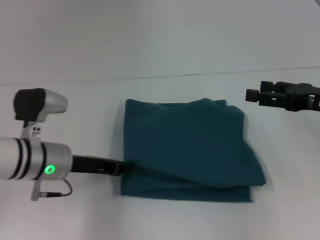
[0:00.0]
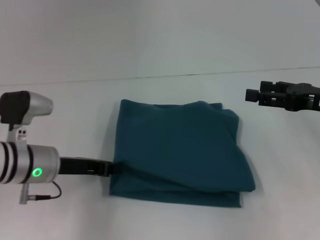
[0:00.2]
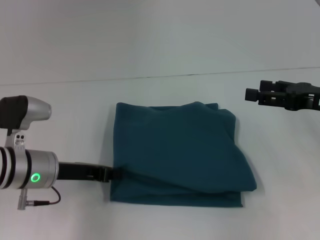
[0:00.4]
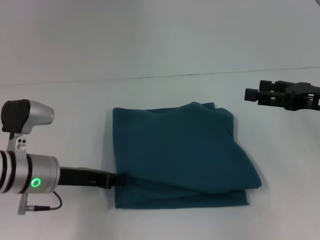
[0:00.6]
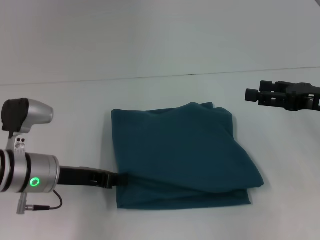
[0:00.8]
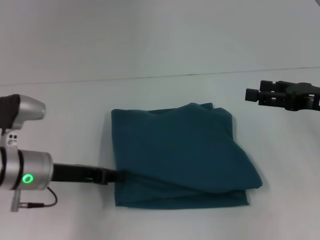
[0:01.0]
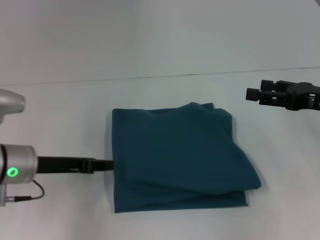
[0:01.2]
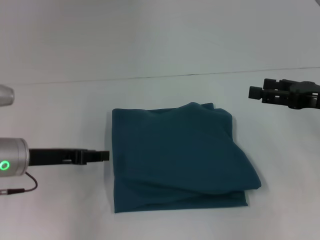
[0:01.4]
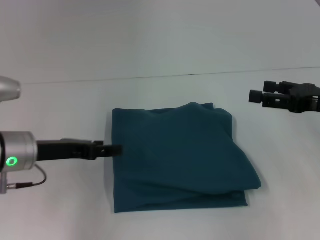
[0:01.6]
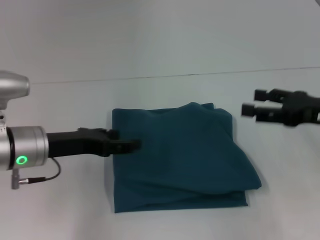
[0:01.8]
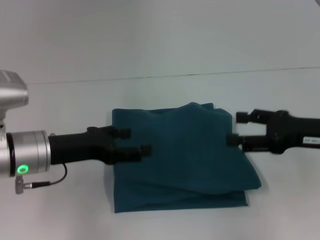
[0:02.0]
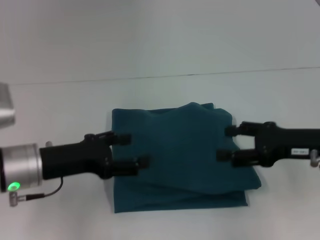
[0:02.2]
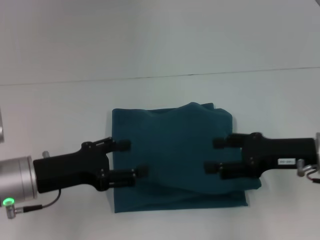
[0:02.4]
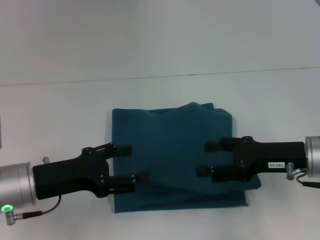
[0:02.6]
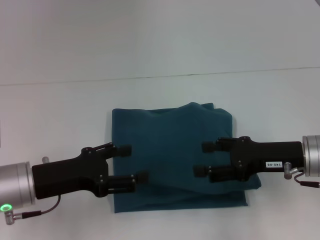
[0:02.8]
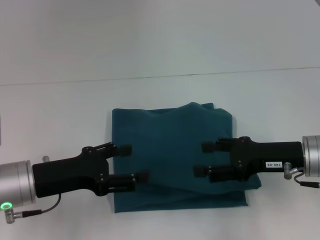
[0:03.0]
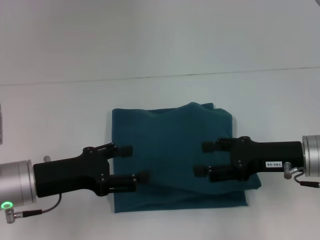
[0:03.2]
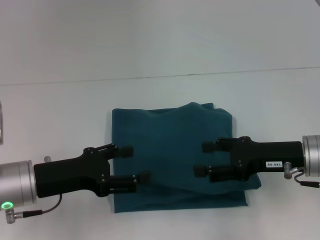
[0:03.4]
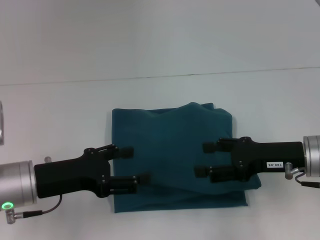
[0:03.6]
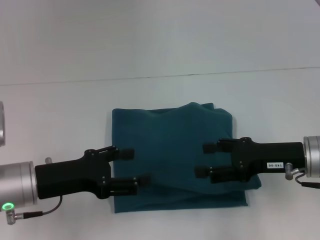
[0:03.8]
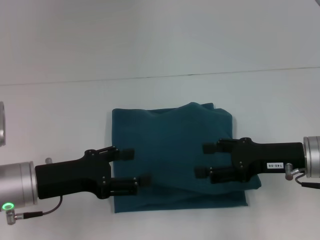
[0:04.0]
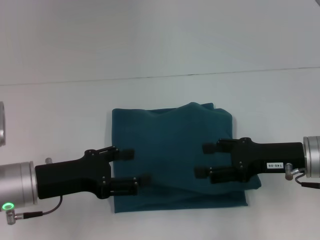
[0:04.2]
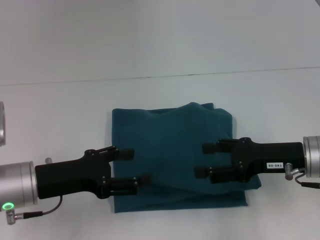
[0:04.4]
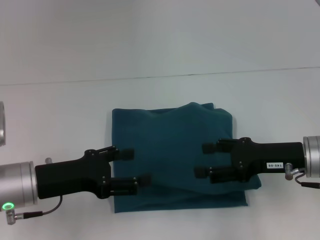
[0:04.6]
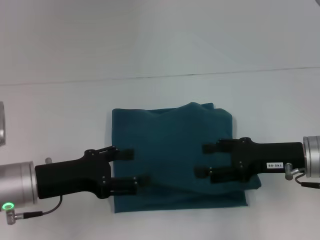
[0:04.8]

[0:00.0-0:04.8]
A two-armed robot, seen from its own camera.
0:00.0 to 0:01.6: The left gripper moves some 5 cm, and opens its fingers.
0:01.6 to 0:03.2: The left gripper is displaced backward by roughly 5 cm, and opens its fingers, while the right gripper is displaced to the left by approximately 10 cm.
0:03.2 to 0:04.8: The two grippers keep their place.

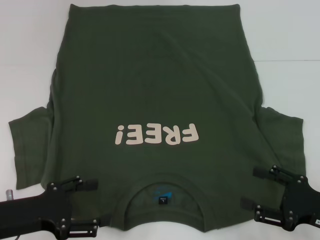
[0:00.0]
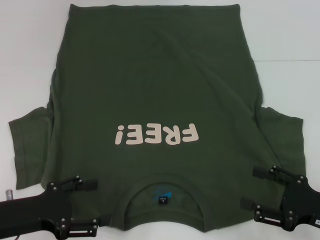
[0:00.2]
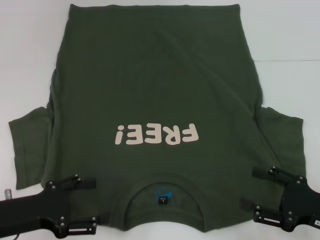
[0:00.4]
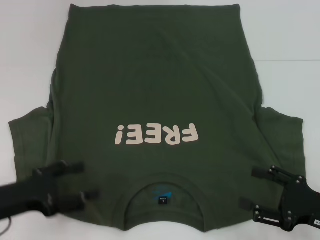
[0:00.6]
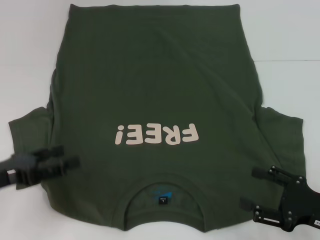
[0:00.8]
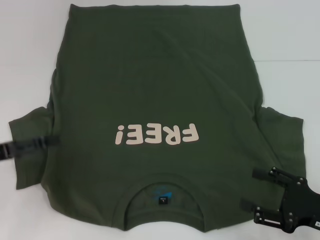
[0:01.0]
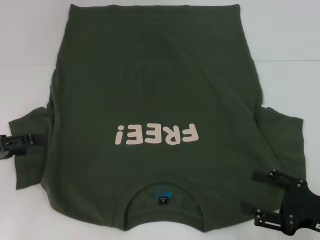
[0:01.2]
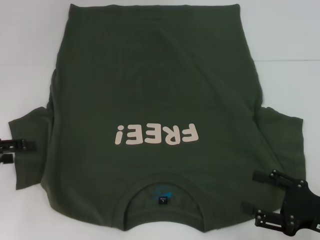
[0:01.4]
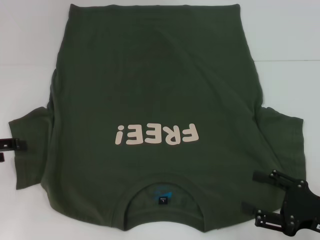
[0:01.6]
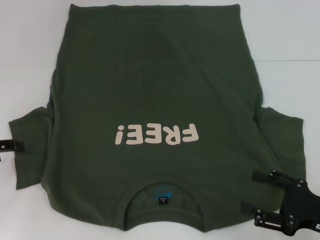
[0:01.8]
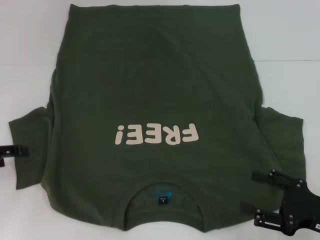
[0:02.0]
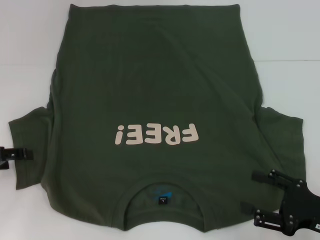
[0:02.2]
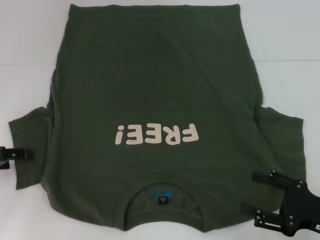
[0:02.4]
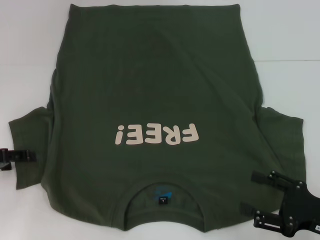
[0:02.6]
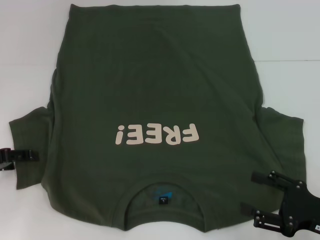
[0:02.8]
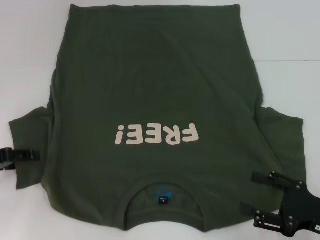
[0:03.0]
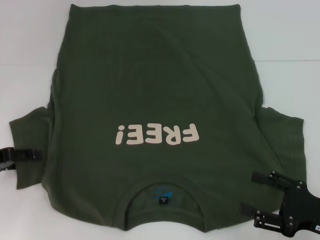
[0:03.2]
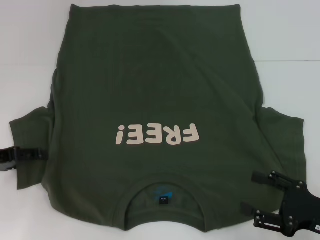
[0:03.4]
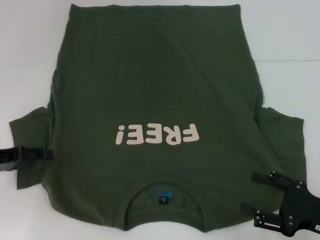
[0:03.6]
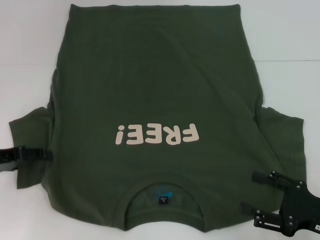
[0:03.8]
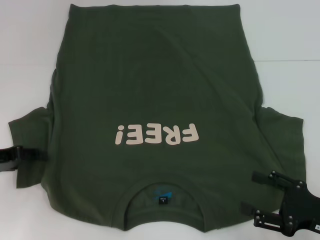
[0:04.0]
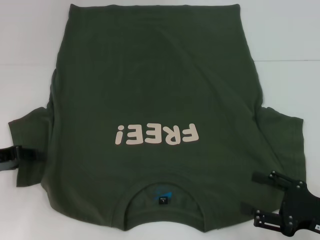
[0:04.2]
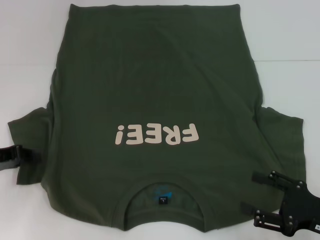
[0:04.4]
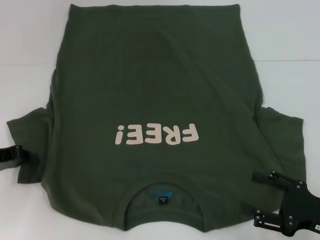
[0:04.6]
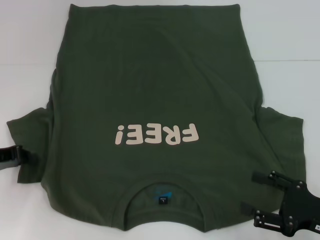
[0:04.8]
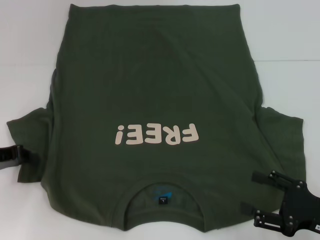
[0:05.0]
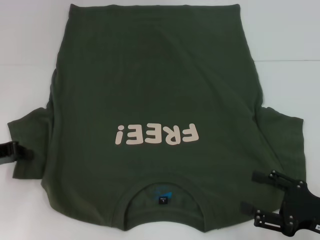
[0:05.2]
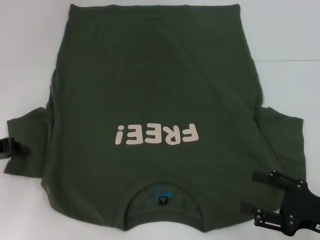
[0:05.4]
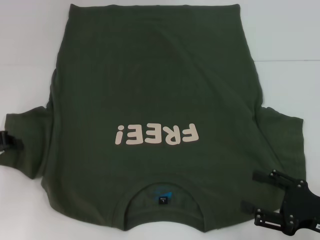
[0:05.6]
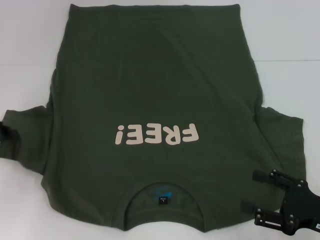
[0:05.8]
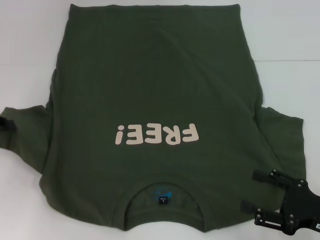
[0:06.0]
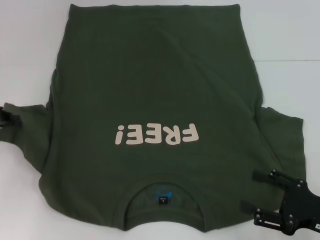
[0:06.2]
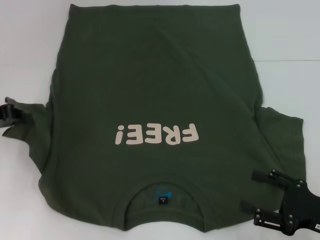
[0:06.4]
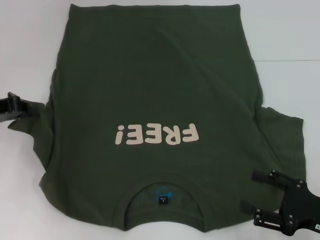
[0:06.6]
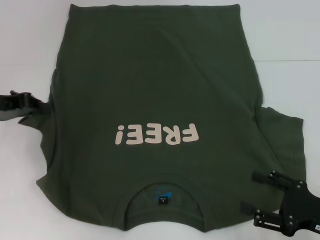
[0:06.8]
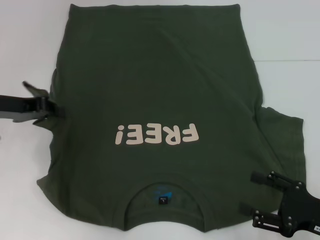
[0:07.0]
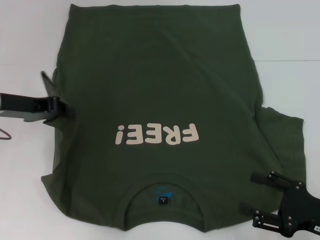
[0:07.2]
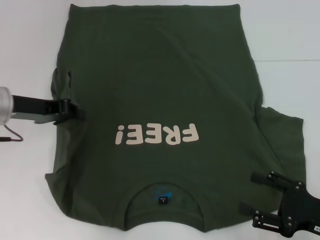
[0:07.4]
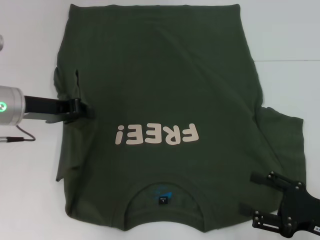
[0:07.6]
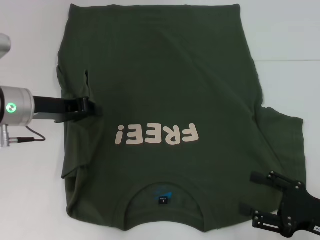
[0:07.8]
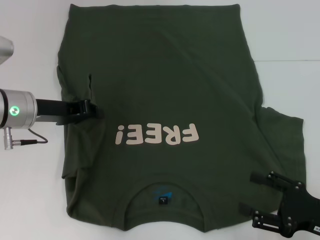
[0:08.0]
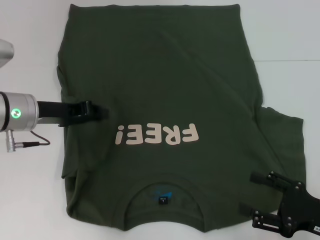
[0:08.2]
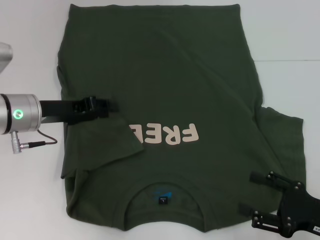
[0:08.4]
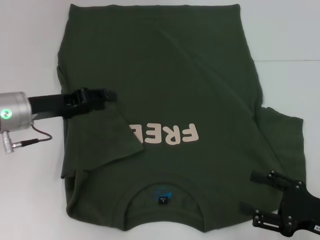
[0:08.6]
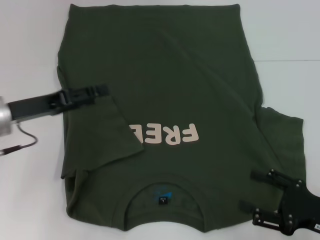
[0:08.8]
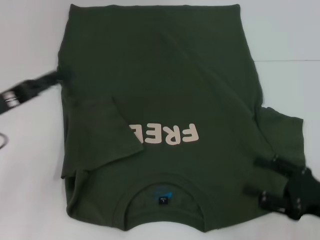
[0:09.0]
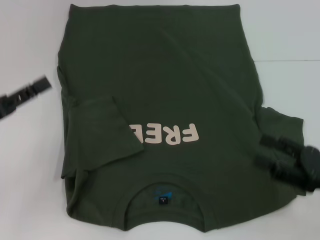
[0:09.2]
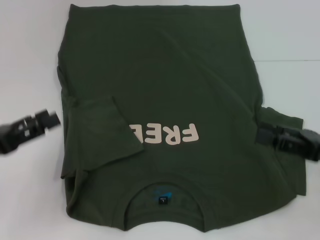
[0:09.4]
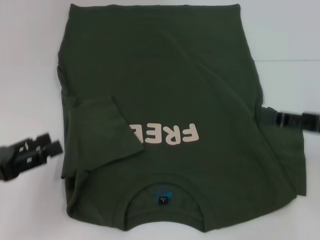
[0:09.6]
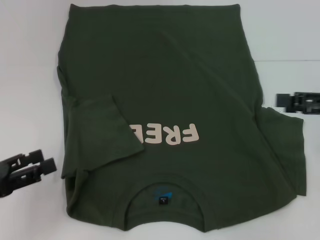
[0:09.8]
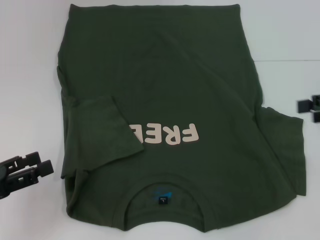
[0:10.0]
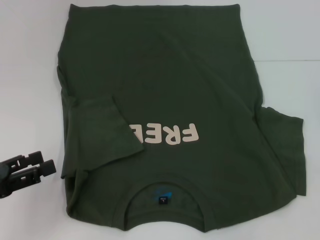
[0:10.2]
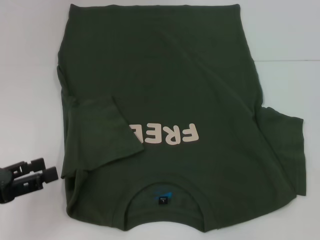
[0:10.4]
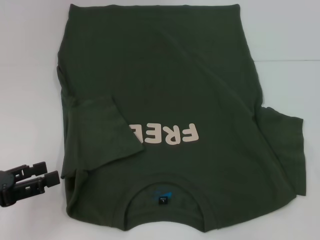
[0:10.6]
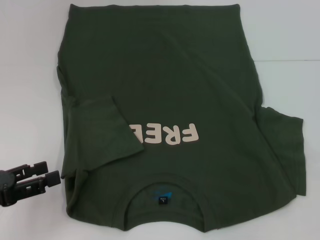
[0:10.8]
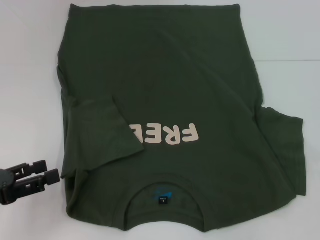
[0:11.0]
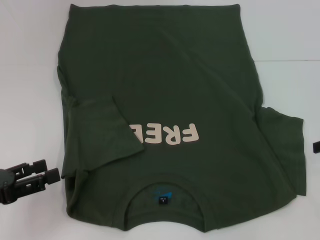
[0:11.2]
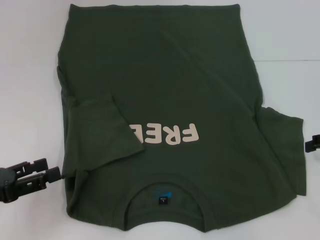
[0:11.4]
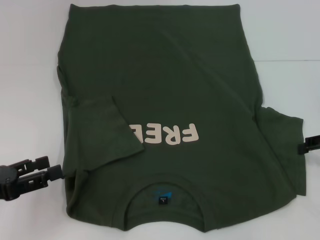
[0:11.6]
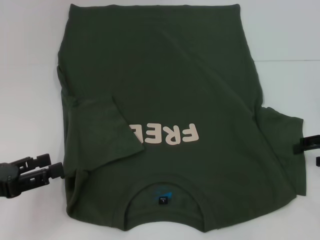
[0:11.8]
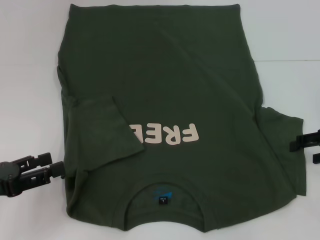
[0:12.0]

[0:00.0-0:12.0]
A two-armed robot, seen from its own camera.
Step, 0:00.0 to 0:11.2: Fold the bottom left sleeve with your left hand.
0:00.0 to 0:01.6: The left gripper is displaced to the left and forward by about 15 cm.
0:01.6 to 0:03.0: The grippers make only small movements.
0:04.4 to 0:06.0: The left gripper changes place by about 5 cm.
0:06.0 to 0:07.6: The left gripper travels to the right by roughly 10 cm.
0:07.6 to 0:09.0: The left gripper travels backward and to the left by approximately 10 cm, and opens.
0:09.0 to 0:10.4: The left gripper goes approximately 10 cm backward. The right gripper moves upward, forward and to the right, approximately 20 cm.
0:10.4 to 0:12.0: The right gripper goes approximately 10 cm downward.

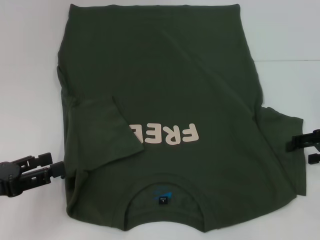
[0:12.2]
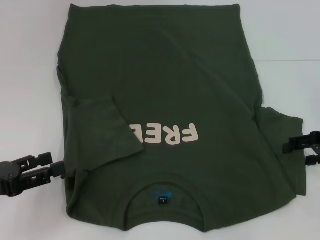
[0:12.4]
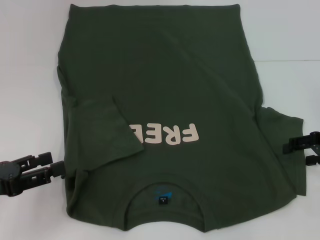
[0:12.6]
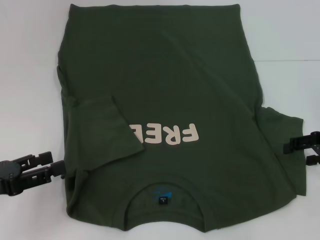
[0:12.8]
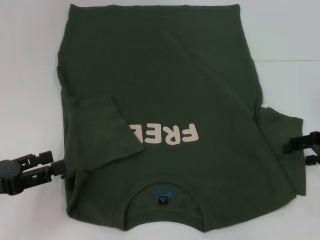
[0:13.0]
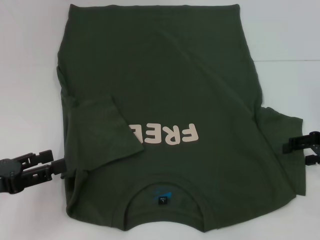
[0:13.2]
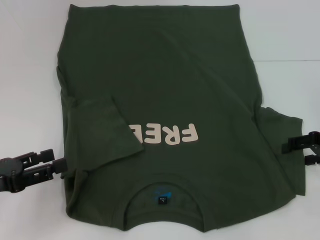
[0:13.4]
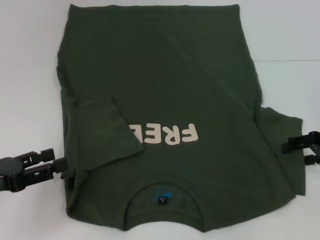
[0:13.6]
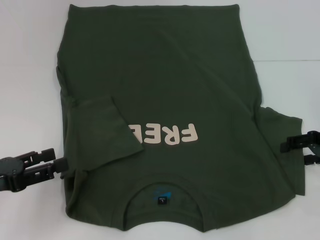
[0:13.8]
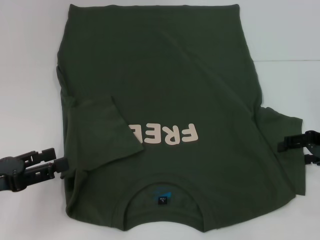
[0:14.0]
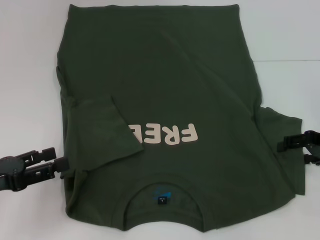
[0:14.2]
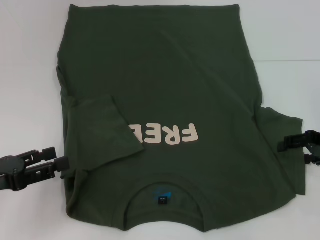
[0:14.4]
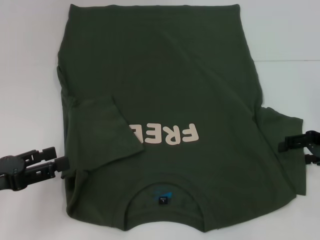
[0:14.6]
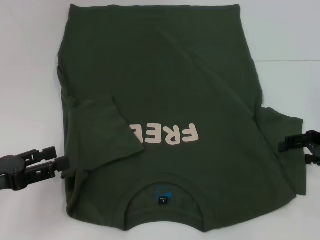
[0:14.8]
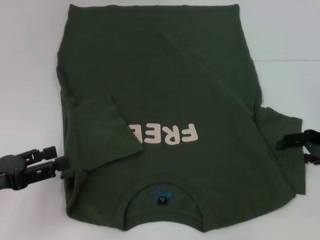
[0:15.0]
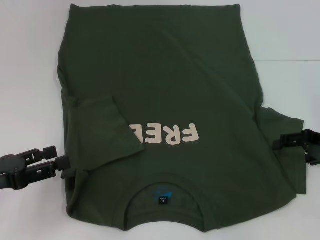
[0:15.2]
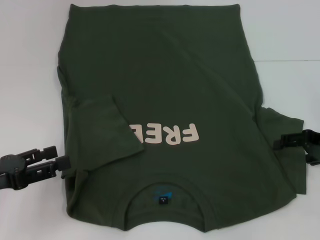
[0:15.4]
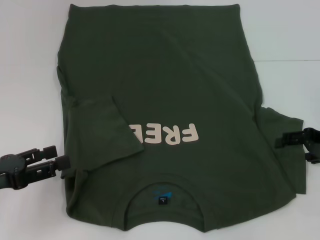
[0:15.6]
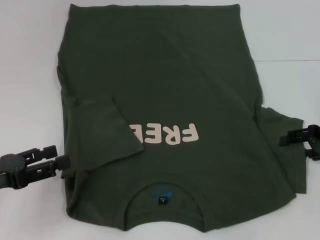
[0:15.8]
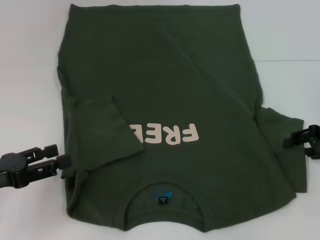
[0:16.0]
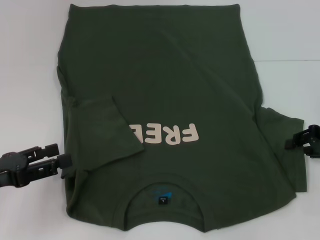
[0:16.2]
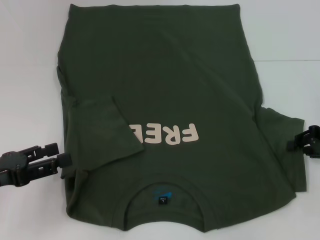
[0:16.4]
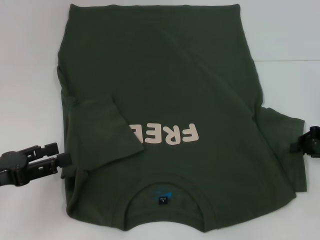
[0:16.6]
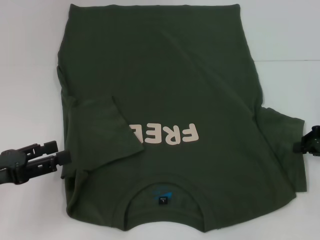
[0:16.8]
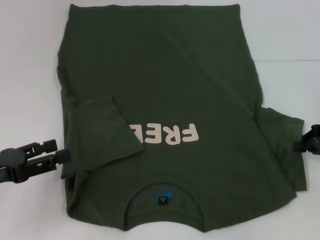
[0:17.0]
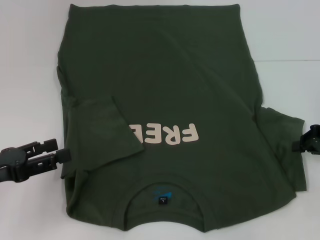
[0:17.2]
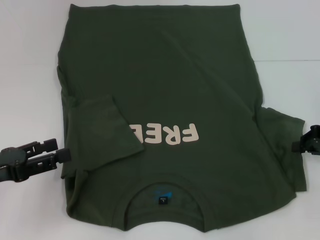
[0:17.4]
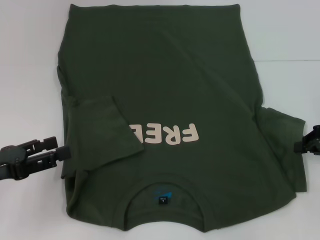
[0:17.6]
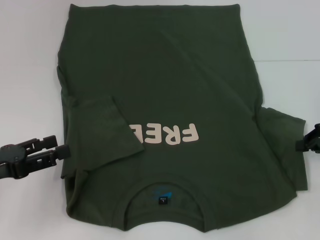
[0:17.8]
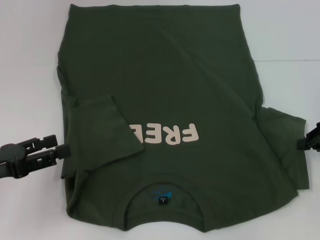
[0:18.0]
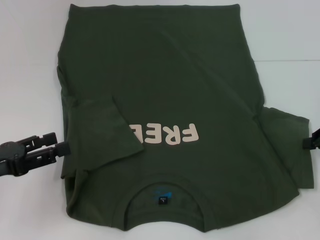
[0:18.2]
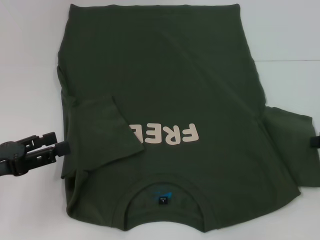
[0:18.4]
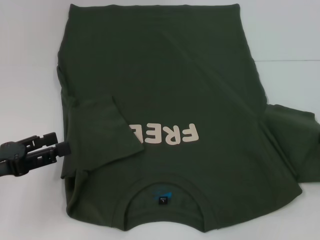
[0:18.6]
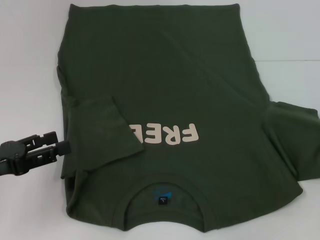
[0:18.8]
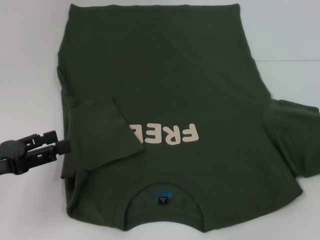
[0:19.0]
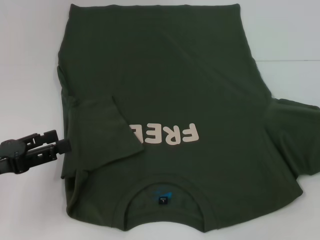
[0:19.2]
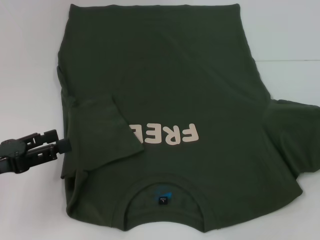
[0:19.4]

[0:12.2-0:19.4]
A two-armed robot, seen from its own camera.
0:12.2 to 0:13.6: Neither gripper changes place.
0:13.6 to 0:15.0: The two grippers keep their place.
0:15.0 to 0:16.6: The right gripper closes up.
0:16.6 to 0:18.0: The grippers stay close to where they were, moving slightly.
0:18.0 to 0:19.4: The right gripper heads to the right, covering approximately 5 cm.
